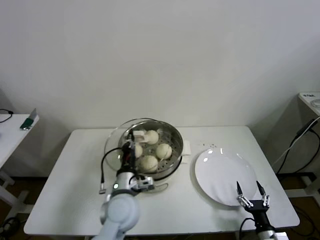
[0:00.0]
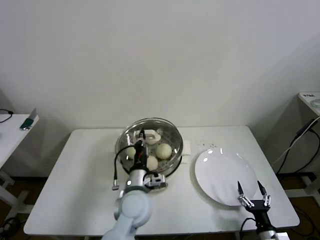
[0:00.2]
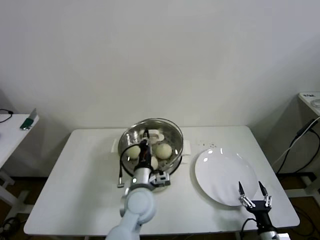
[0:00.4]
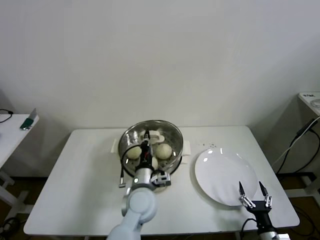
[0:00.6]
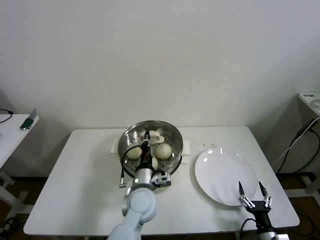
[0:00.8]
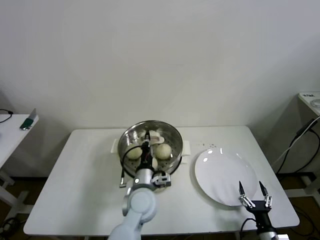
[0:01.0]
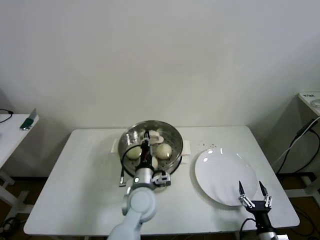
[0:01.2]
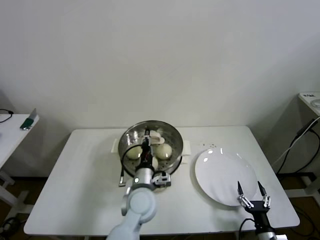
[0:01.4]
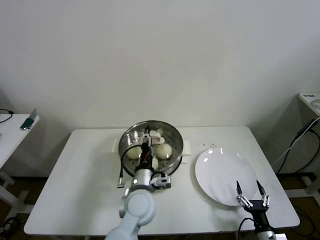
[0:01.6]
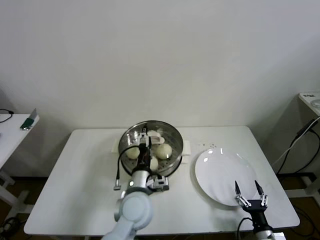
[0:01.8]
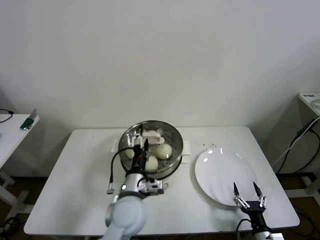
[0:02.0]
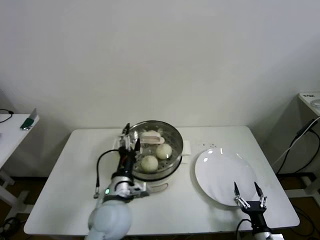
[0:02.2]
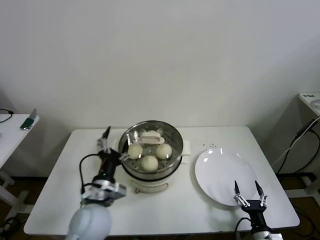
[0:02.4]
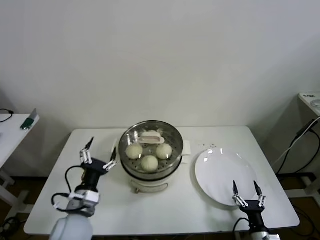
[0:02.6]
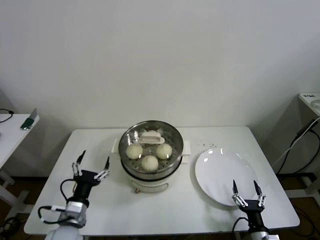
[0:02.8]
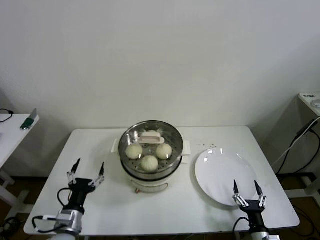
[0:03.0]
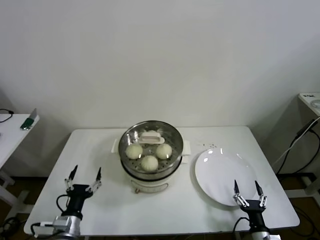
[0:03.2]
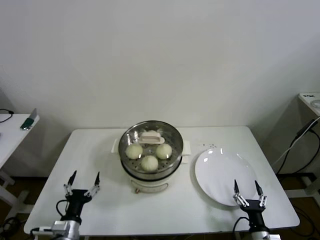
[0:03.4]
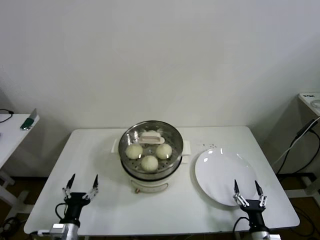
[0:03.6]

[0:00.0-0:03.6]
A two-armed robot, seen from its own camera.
0:00.0 to 0:01.8: The left gripper travels to the right by about 5 cm, and opens.
0:01.8 to 0:03.6: The left gripper heads to the left, downward and backward, covering about 30 cm.

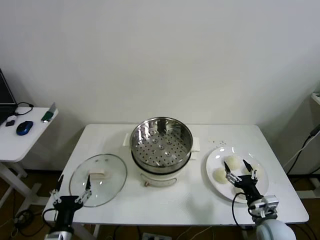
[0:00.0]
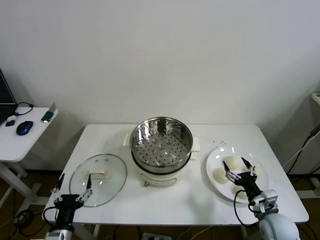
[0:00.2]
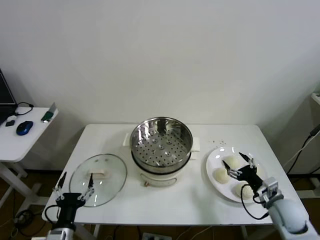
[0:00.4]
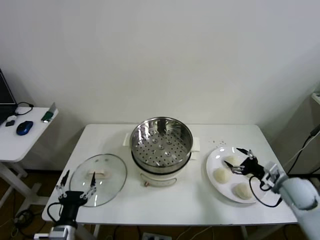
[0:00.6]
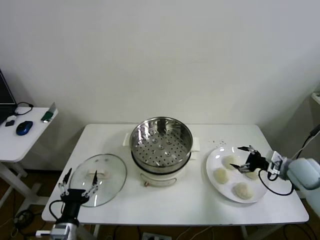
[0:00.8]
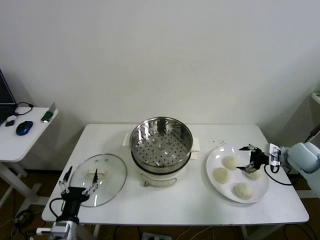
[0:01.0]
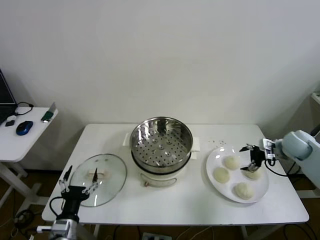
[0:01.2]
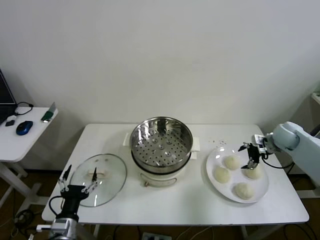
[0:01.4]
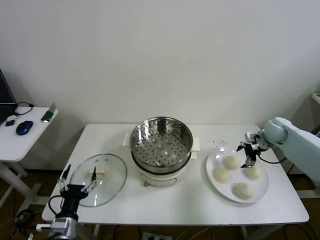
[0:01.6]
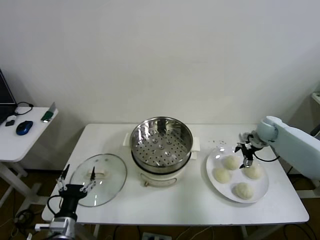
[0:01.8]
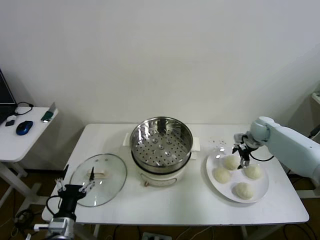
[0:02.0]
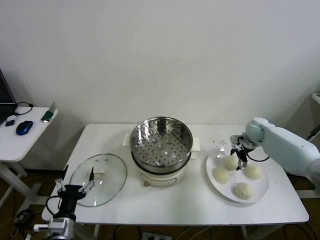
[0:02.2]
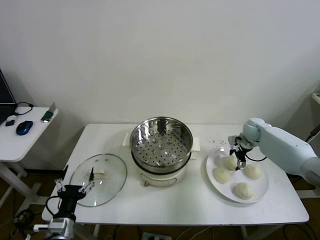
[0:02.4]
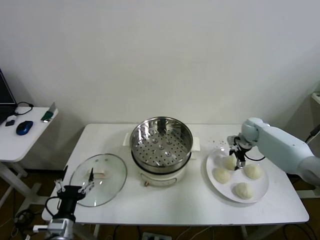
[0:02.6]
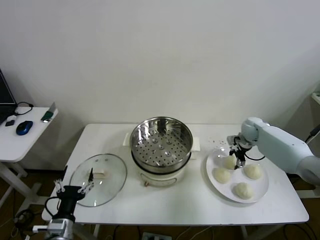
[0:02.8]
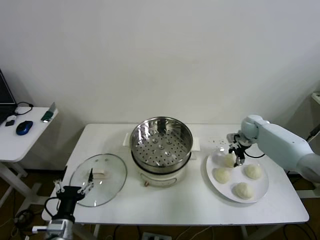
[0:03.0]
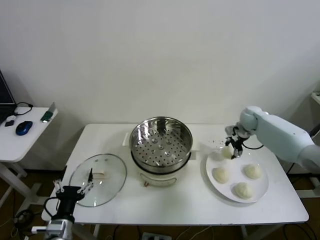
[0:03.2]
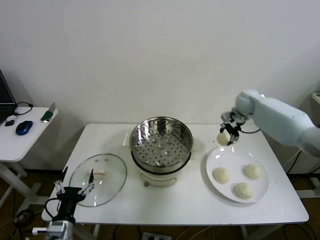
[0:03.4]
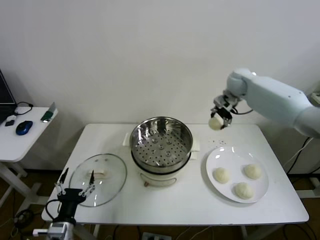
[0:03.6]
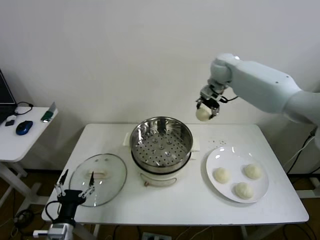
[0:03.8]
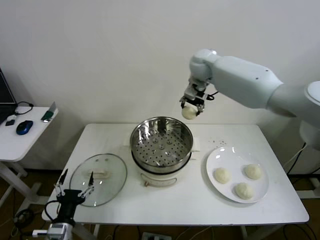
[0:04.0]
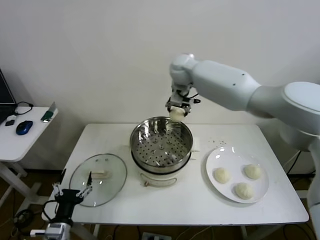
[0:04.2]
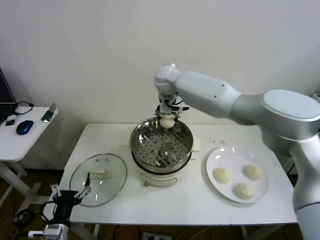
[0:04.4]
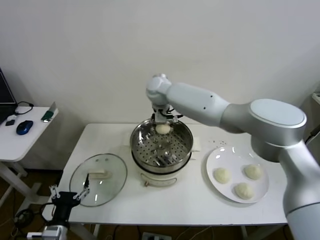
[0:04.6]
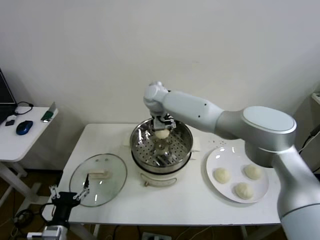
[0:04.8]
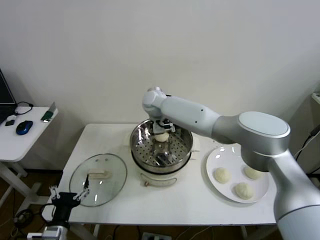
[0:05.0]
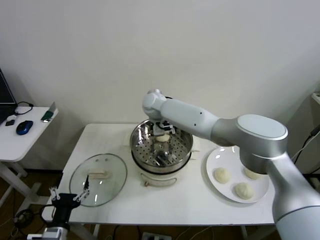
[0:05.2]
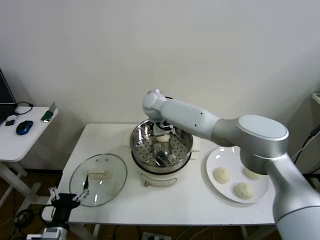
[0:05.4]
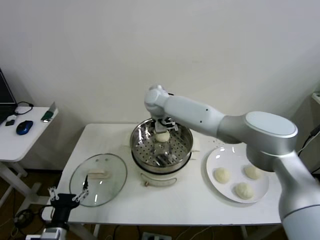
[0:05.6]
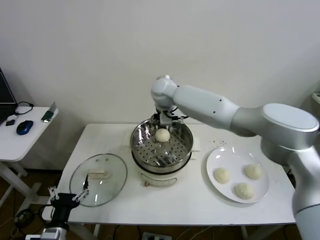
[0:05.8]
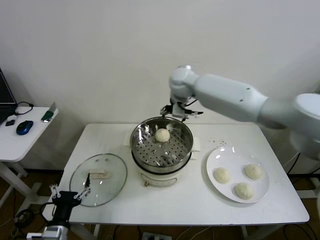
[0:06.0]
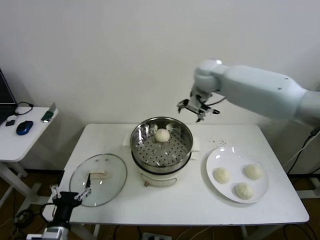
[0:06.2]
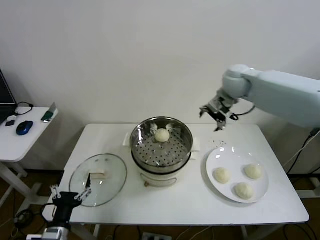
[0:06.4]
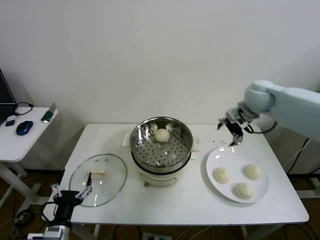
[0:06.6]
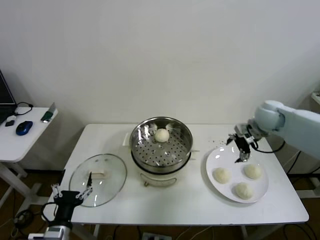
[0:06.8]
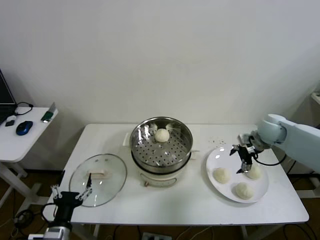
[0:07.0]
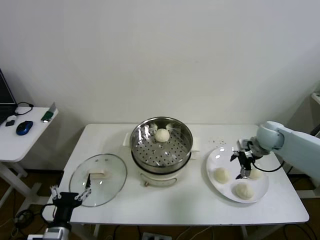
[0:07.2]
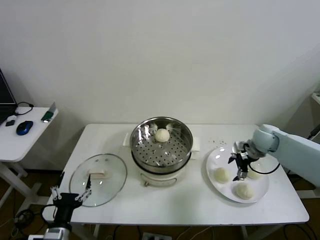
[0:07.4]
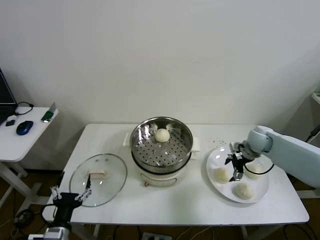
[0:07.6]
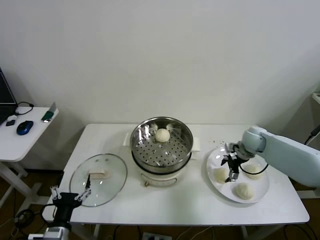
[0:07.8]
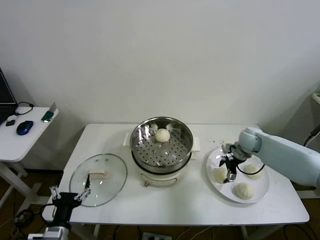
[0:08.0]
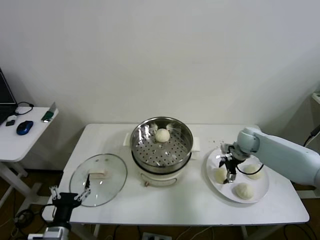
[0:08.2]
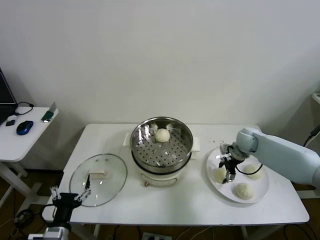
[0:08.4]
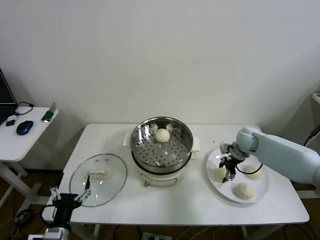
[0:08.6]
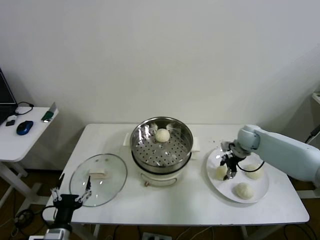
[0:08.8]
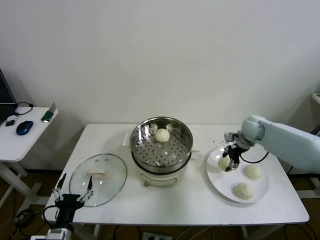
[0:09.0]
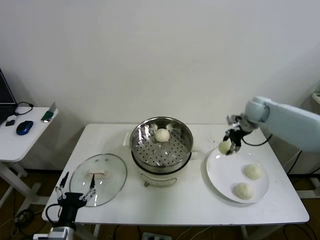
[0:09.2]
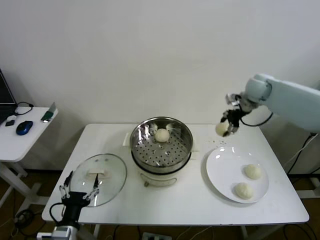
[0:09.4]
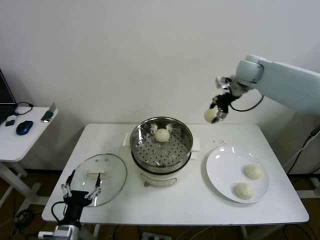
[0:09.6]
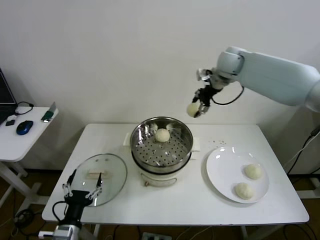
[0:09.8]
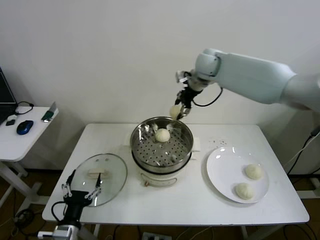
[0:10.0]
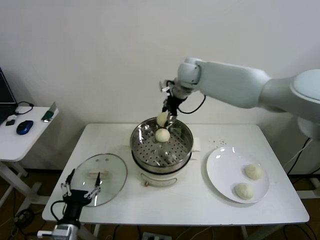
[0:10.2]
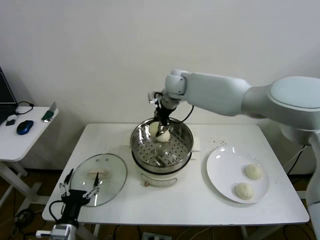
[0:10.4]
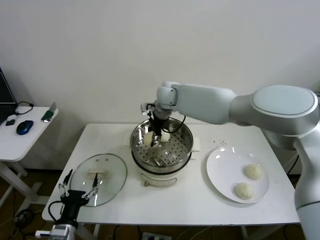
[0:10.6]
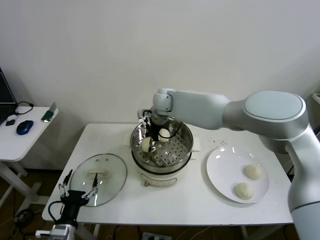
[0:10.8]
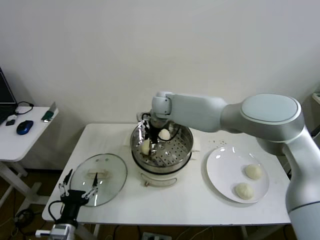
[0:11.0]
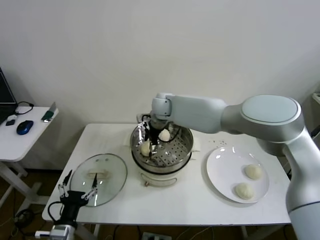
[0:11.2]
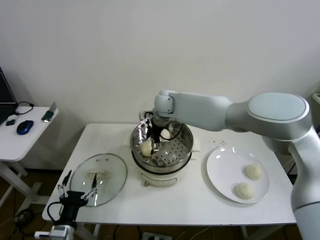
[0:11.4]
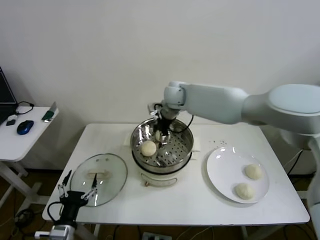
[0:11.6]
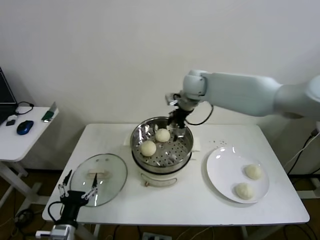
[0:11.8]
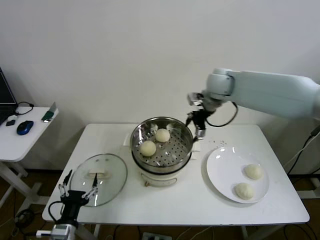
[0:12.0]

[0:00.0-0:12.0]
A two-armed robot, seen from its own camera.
Step, 0:00.0 to 0:02.8: Grasp the baozi in the plate with right gripper.
Step, 0:03.0 to 0:05.6: Place the baozi on the steamer with right gripper.
Step, 0:05.8 to 0:08.4: Grasp the baozi in the plate with right gripper.
Step, 0:08.6 to 0:11.4: Place the baozi on the steamer with right gripper.
0:01.6 to 0:03.0: The right gripper heads to the left and forward, covering roughly 5 cm, and closes up.
0:03.0 to 0:04.4: The right gripper goes approximately 40 cm to the left and upward.
0:04.4 to 0:06.0: The right gripper shifts some 10 cm to the right, and opens.
0:06.0 to 0:07.6: The right gripper heads to the right and downward, covering about 35 cm.
0:07.6 to 0:09.0: The right gripper goes approximately 5 cm upward, and closes its fingers.
0:09.0 to 0:10.4: The right gripper goes about 30 cm to the left.
0:10.4 to 0:12.0: The right gripper heads to the right, covering about 15 cm, and opens its fingers.

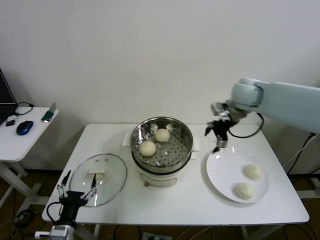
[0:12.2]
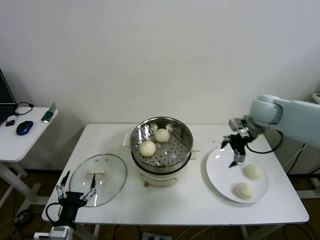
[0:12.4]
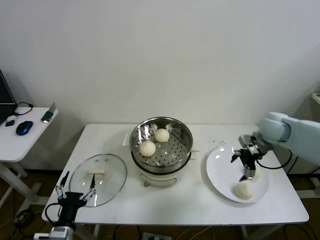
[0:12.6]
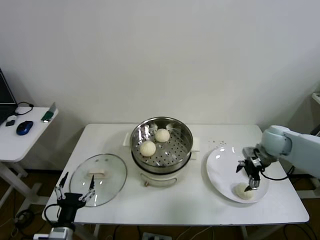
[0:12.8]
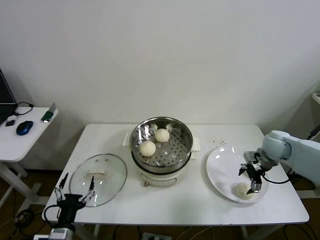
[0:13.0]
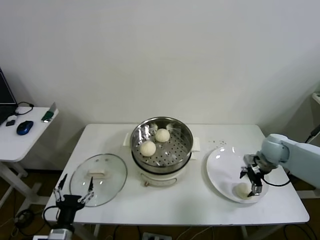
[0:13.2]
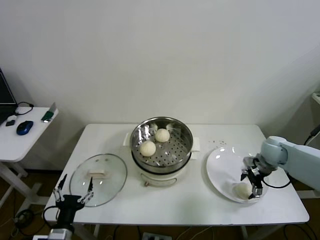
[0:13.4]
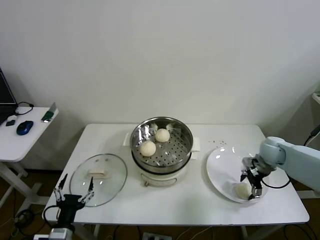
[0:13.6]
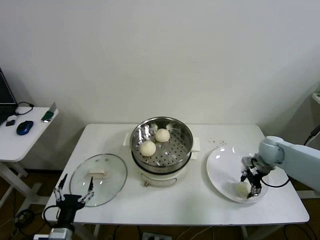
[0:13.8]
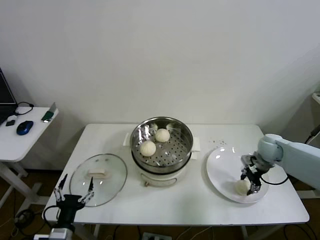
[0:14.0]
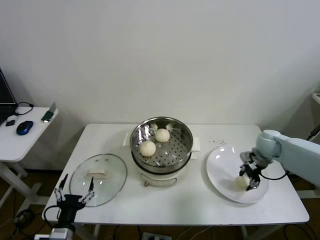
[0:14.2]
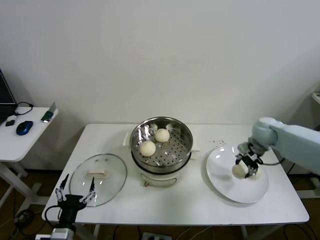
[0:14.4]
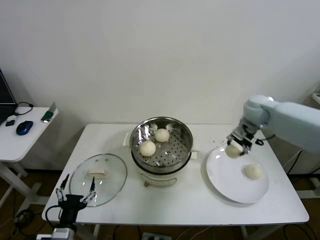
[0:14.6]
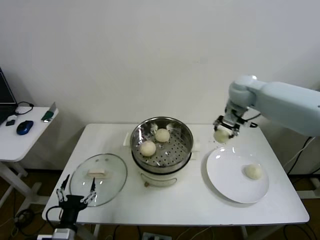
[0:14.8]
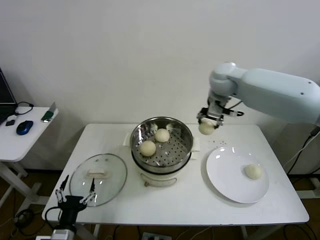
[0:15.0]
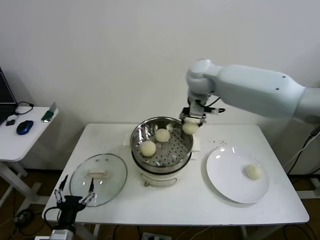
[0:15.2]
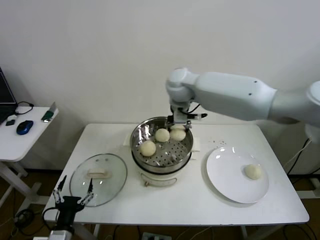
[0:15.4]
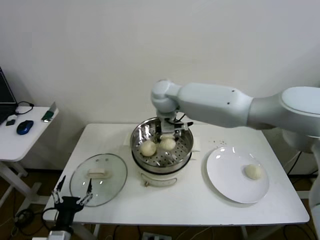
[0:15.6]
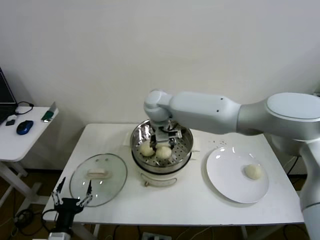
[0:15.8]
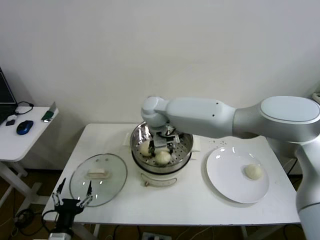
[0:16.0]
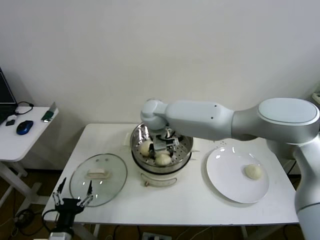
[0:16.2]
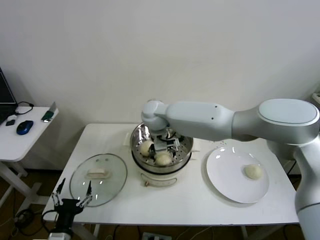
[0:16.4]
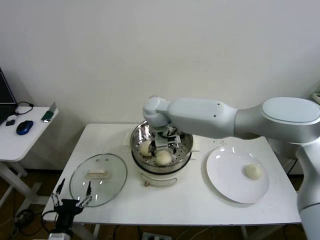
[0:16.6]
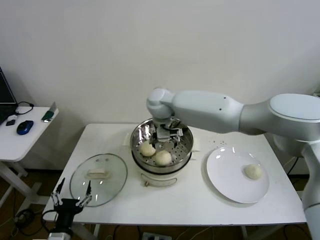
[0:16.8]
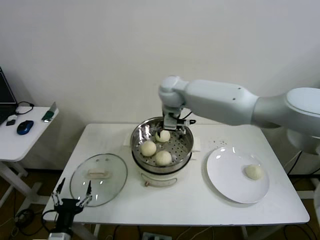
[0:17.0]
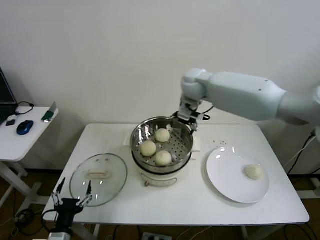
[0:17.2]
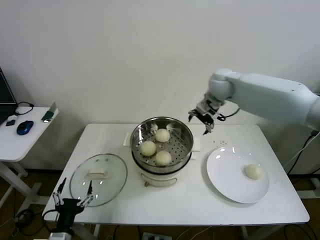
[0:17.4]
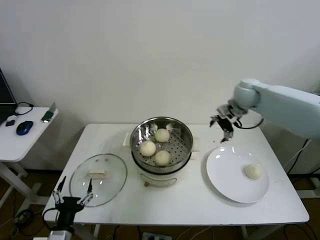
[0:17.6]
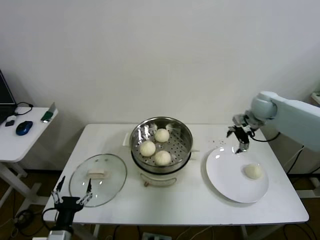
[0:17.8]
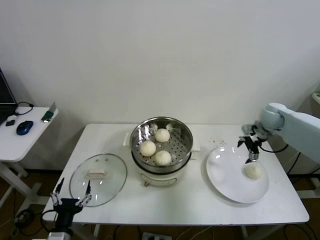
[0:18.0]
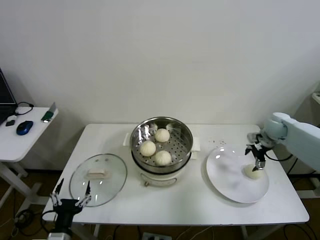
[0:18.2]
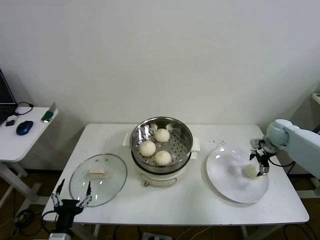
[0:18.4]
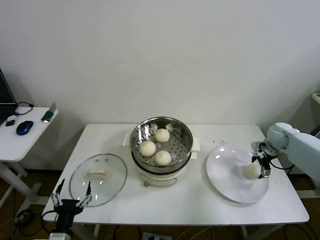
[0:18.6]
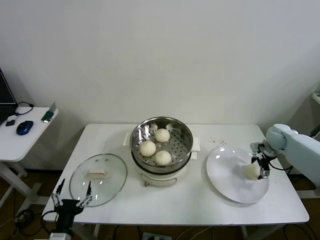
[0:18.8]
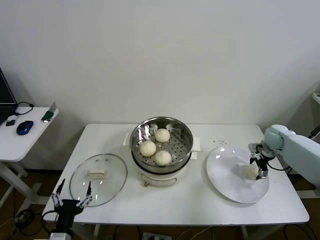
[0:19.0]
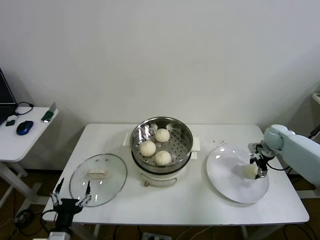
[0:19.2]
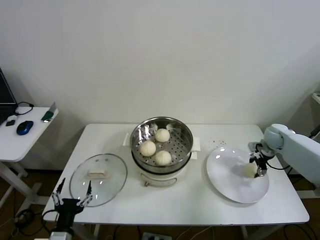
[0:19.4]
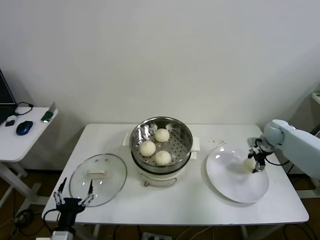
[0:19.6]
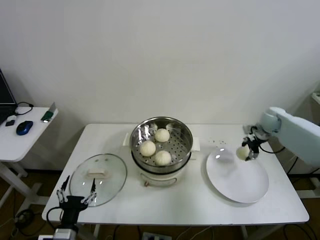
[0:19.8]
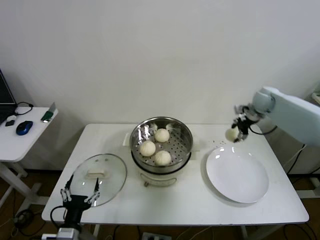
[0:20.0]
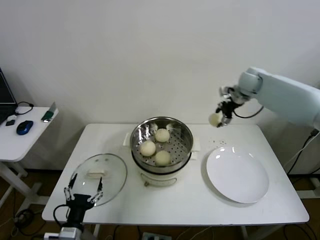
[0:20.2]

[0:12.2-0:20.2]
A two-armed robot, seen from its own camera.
Step, 0:12.2 to 0:13.8: Grasp the baozi in the plate with right gripper.
Step, 0:14.0 to 0:16.6: Place the baozi on the steamer with right gripper.
Step, 0:16.8 to 0:19.0: Grasp the baozi in the plate with right gripper.
0:12.2 to 0:13.8: The right gripper goes some 25 cm downward and to the right, and closes.
0:13.8 to 0:15.4: The right gripper goes approximately 40 cm to the left and upward.
0:15.4 to 0:17.0: The right gripper moves approximately 10 cm downward and comes back, and opens its fingers.
0:17.0 to 0:18.6: The right gripper is displaced to the right and downward by about 50 cm.
0:18.6 to 0:20.2: The right gripper heads upward, to the left and forward, covering approximately 25 cm, and closes.
